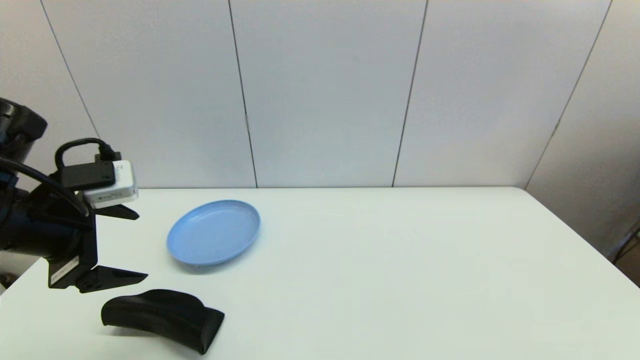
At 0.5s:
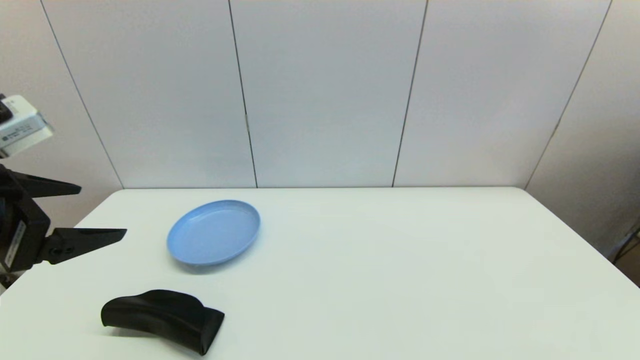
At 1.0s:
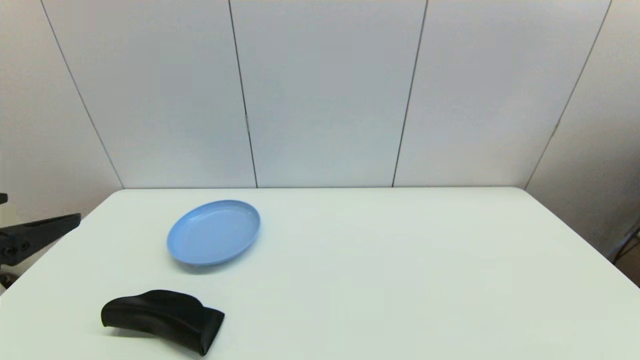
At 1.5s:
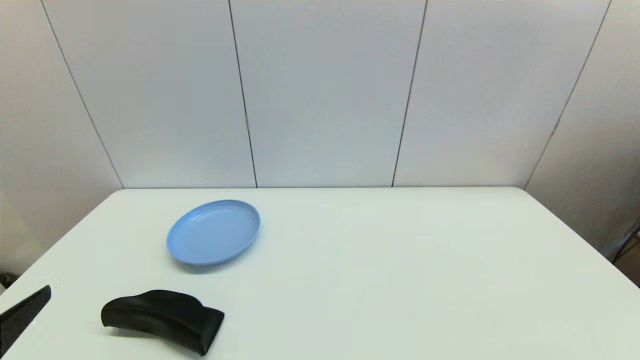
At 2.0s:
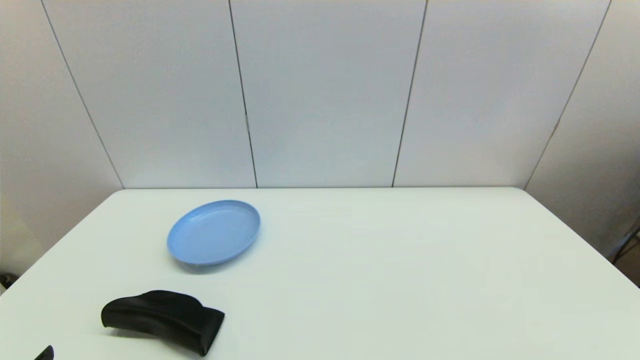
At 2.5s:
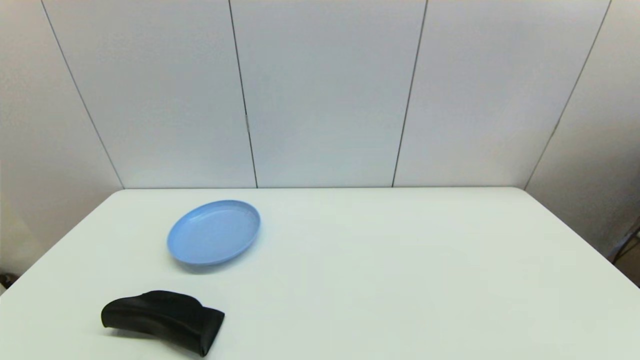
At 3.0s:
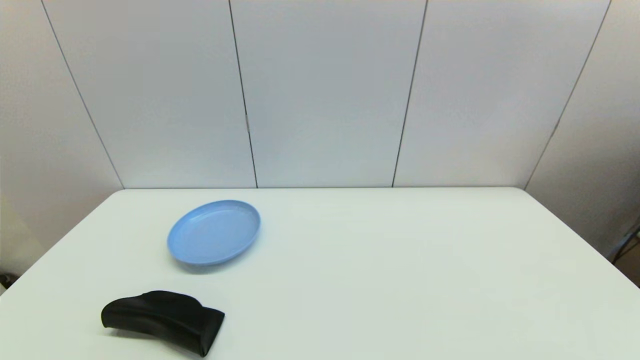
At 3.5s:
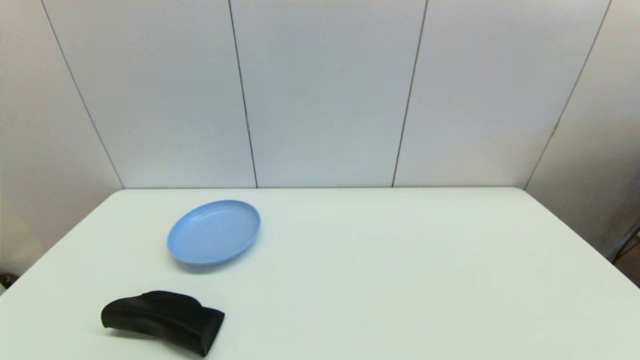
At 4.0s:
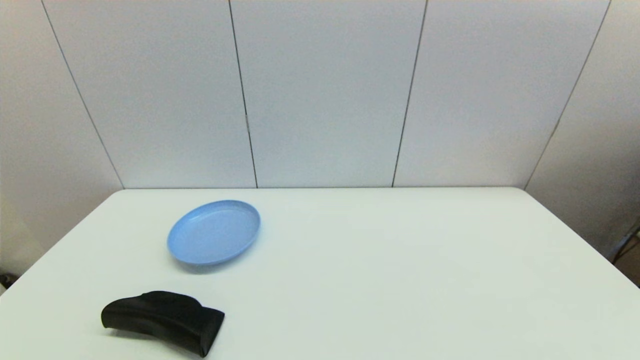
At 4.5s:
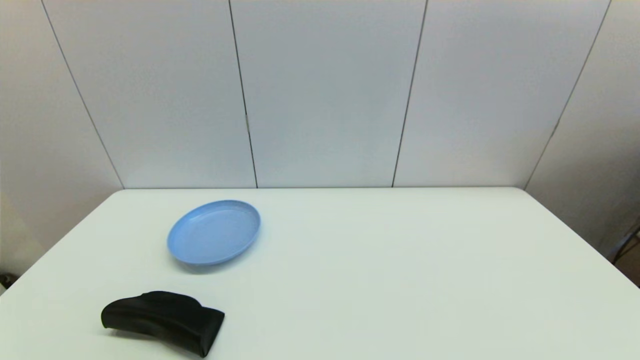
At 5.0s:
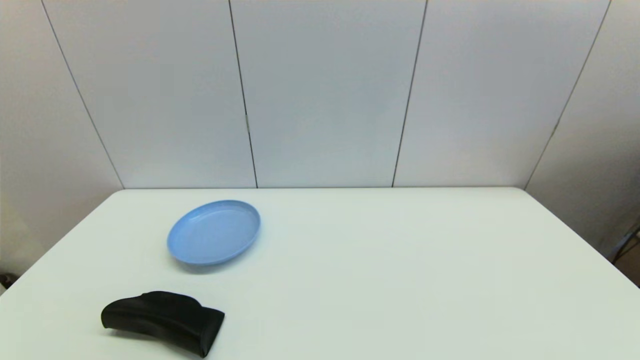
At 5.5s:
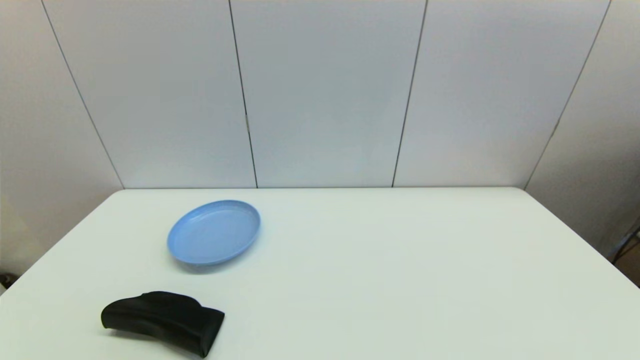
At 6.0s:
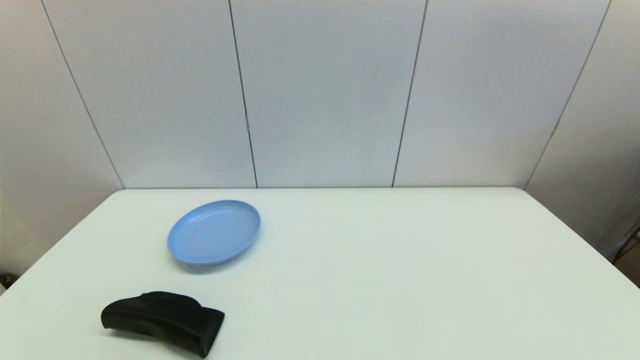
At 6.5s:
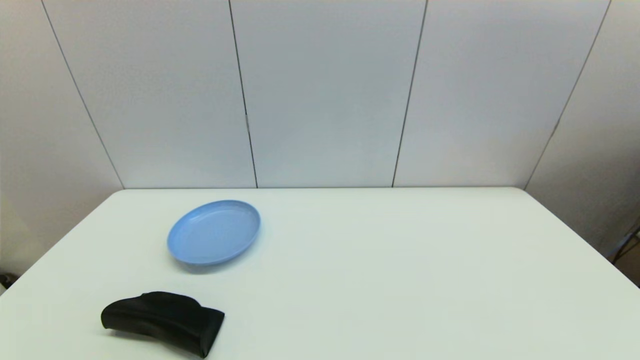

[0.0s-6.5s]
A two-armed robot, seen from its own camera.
0.0s to 2.0s: The left gripper goes approximately 25 cm backward and downward.
4.5s to 6.5s: Neither gripper changes place.
